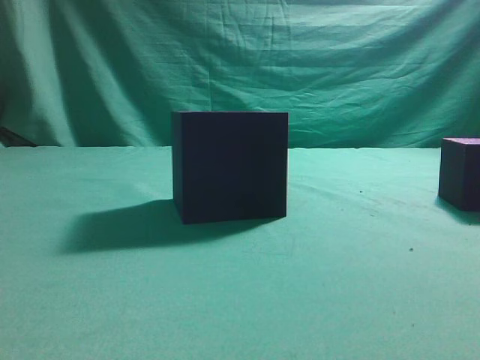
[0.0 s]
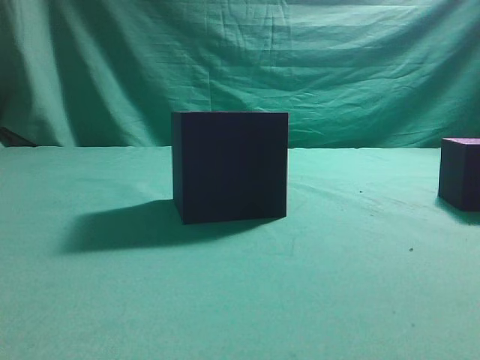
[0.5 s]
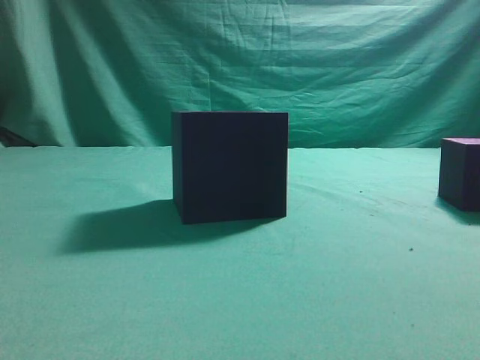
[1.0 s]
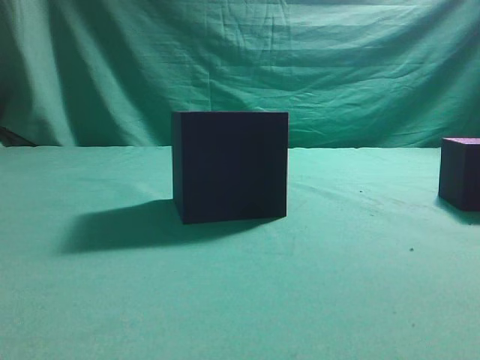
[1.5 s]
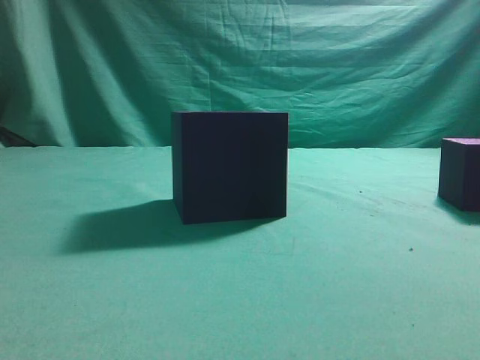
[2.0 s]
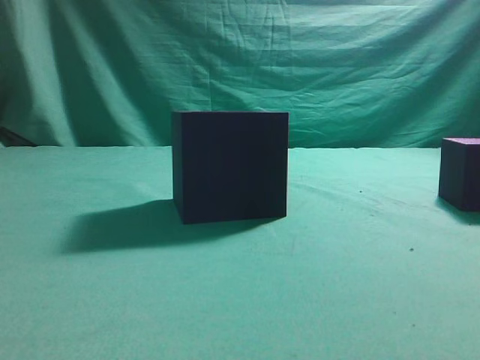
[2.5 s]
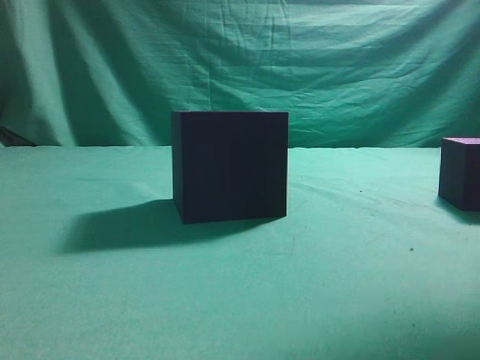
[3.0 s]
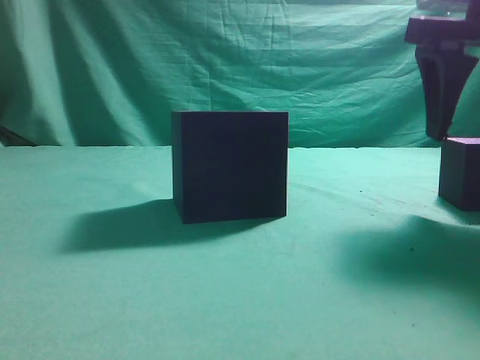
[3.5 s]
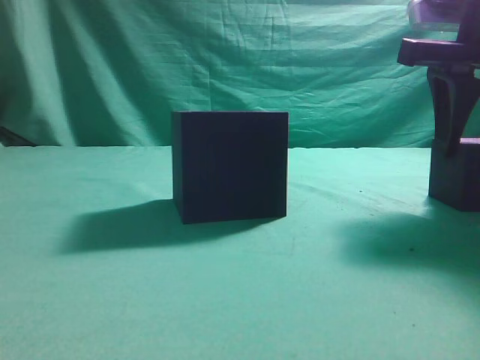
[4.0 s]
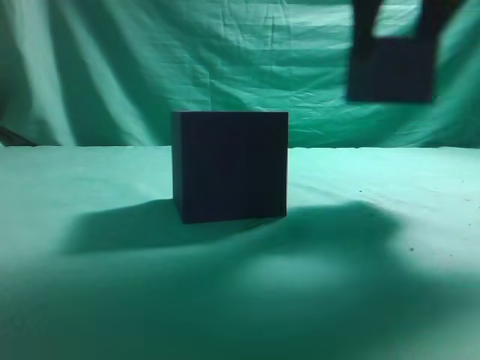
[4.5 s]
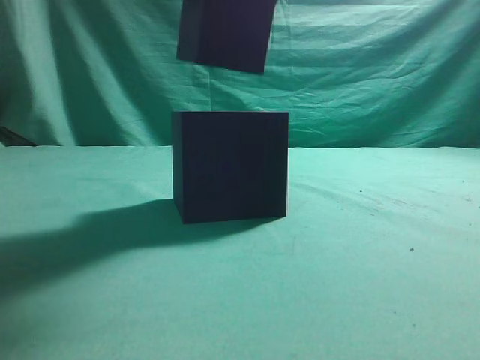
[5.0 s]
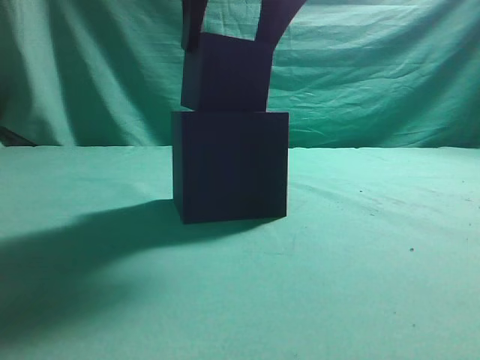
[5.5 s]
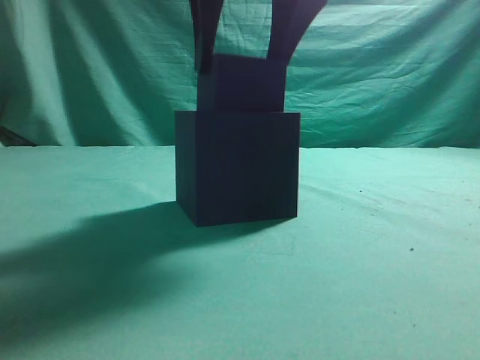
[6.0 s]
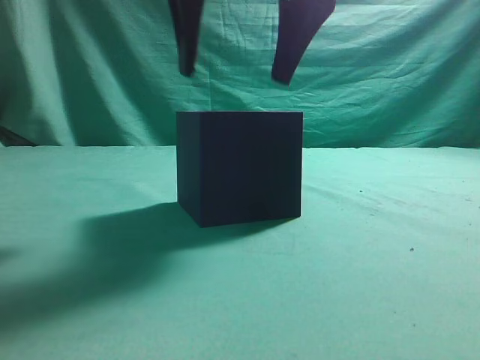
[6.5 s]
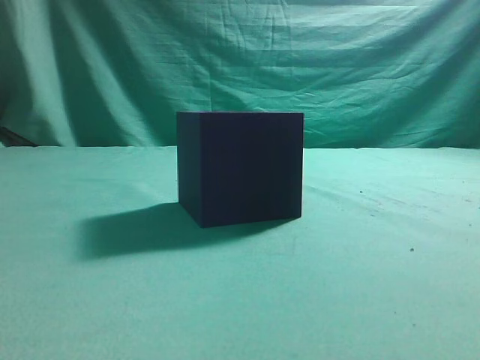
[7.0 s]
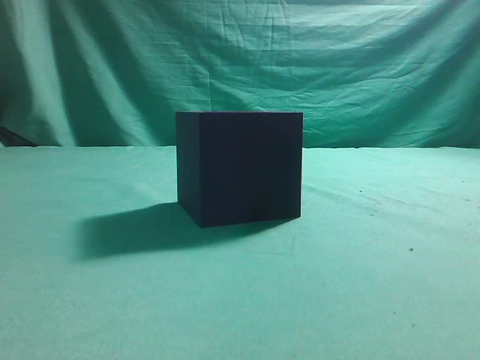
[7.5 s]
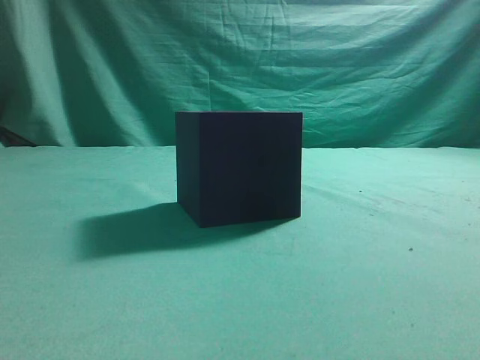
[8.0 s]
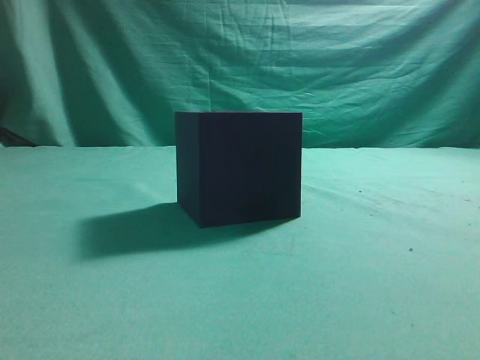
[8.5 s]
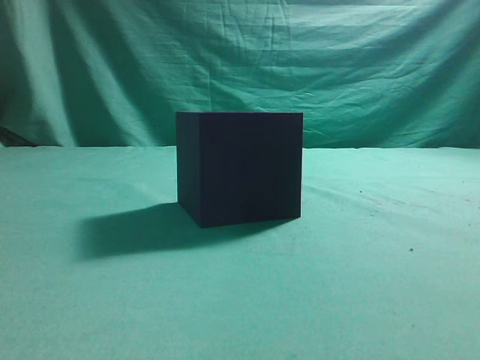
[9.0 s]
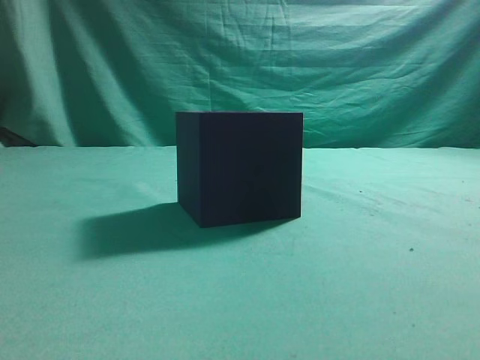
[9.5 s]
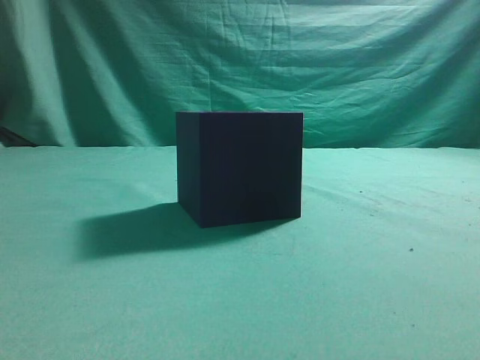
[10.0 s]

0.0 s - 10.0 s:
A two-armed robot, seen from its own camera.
Task of the whole recording: pick up the cube block and place it into the cube groove.
Step, 0.0 s - 4.0 s: Grasp the cube.
Step, 4.5 s - 6.5 s: Place cube into the cube-shaped recess.
2.0 s - 4.0 s: The right gripper heads forward, covering approximately 25 cm, and opens up.
4.0 s - 6.0 s: The right gripper shifts approximately 20 cm to the left.
6.0 s - 8.0 s: The right gripper moves to the right, backward and upward, some 35 cm, and closes its fingers.

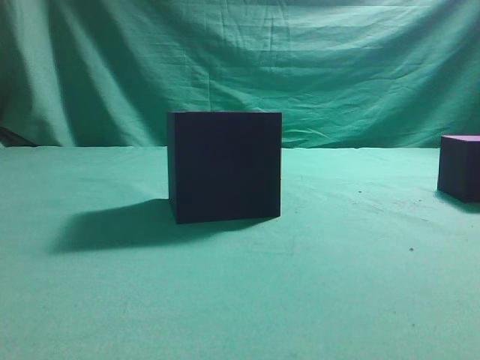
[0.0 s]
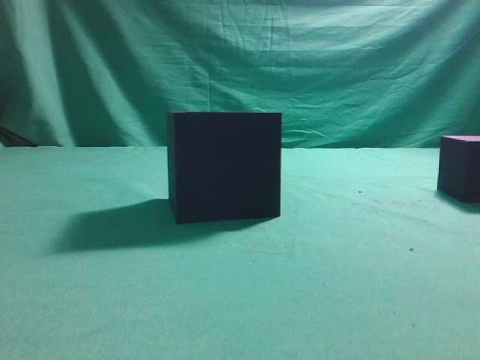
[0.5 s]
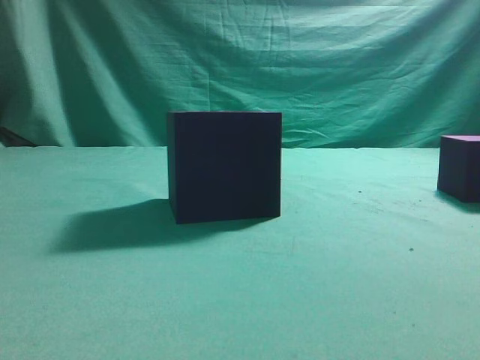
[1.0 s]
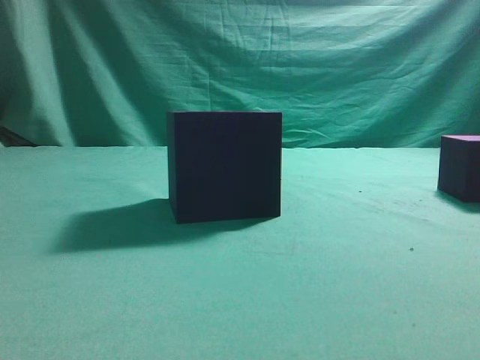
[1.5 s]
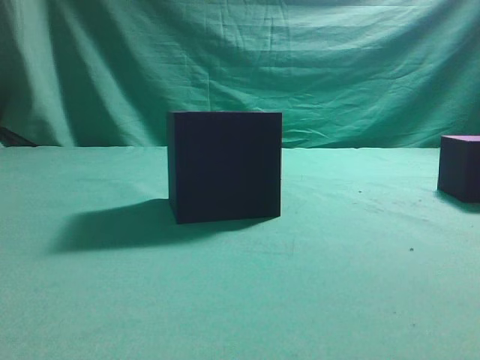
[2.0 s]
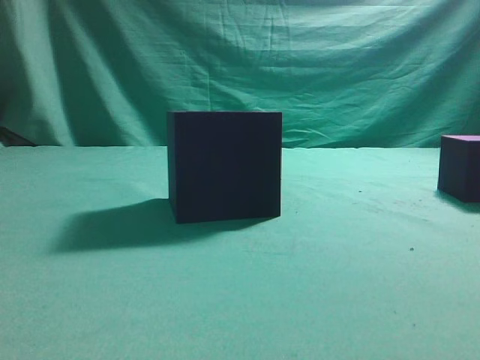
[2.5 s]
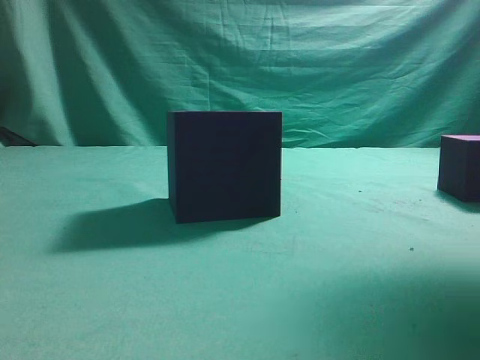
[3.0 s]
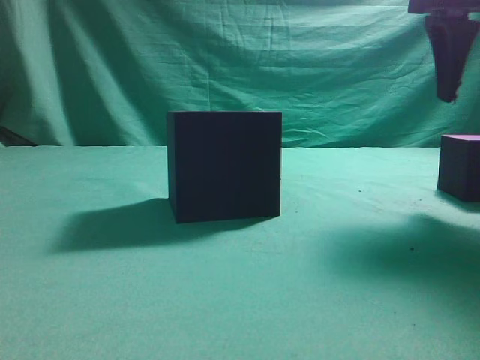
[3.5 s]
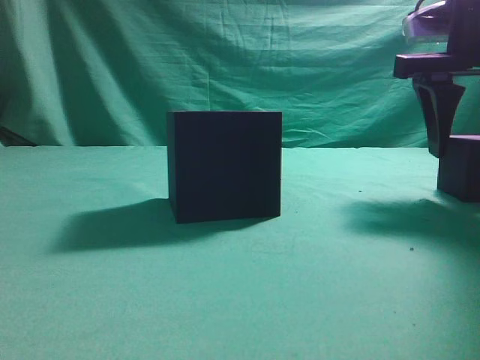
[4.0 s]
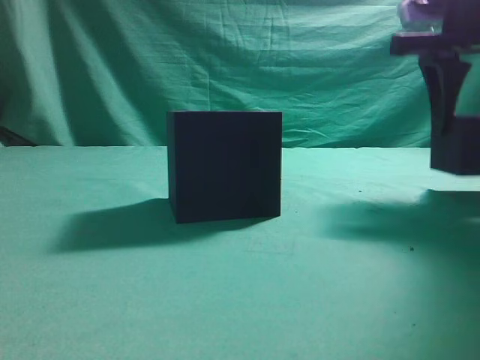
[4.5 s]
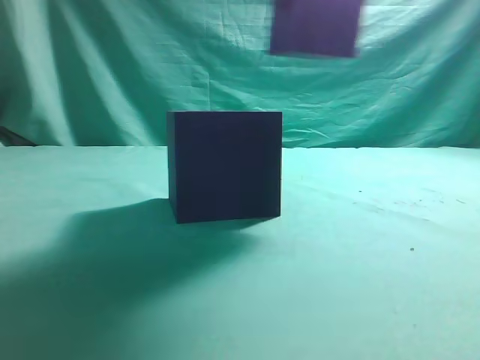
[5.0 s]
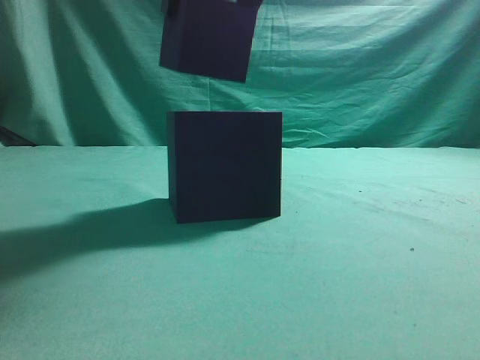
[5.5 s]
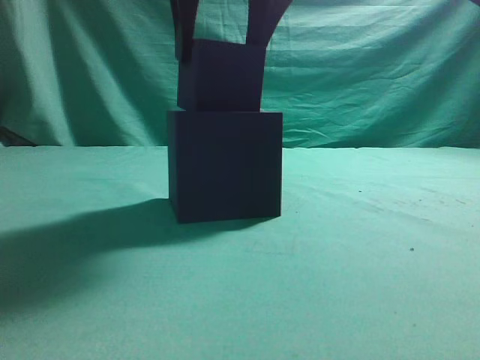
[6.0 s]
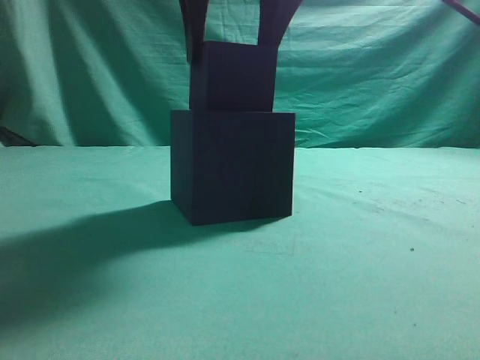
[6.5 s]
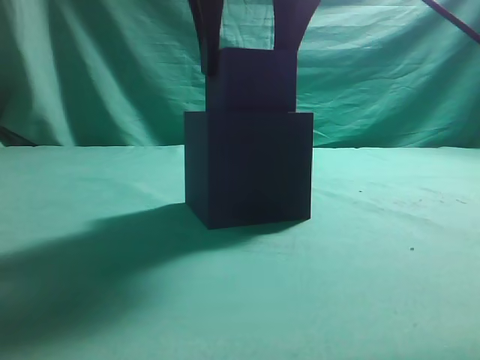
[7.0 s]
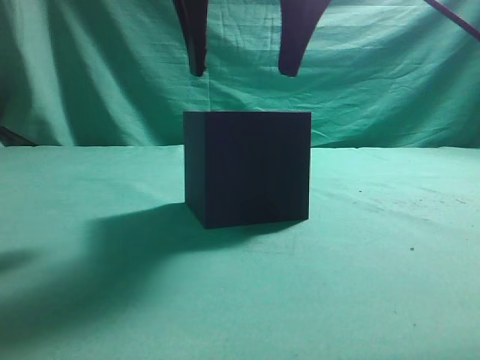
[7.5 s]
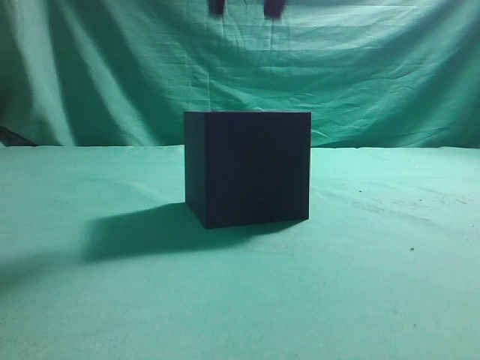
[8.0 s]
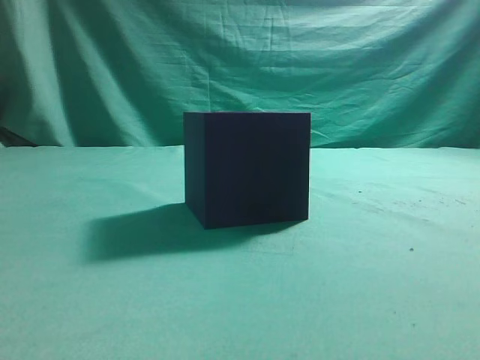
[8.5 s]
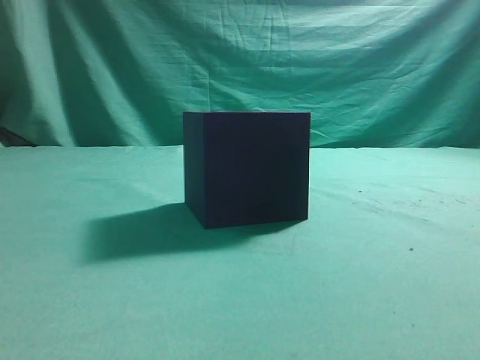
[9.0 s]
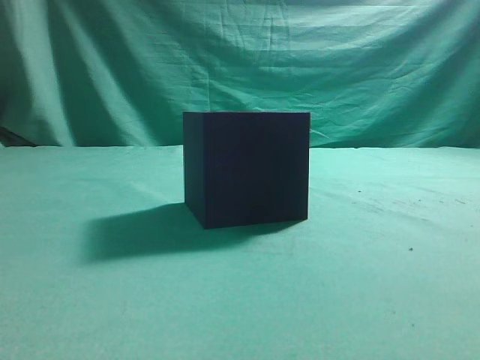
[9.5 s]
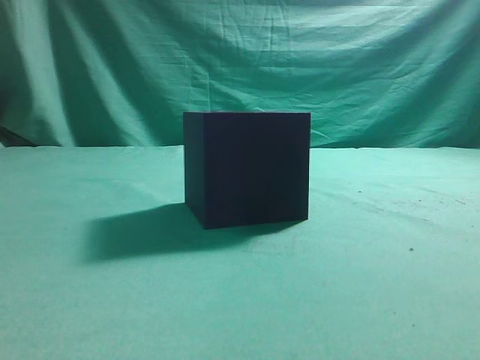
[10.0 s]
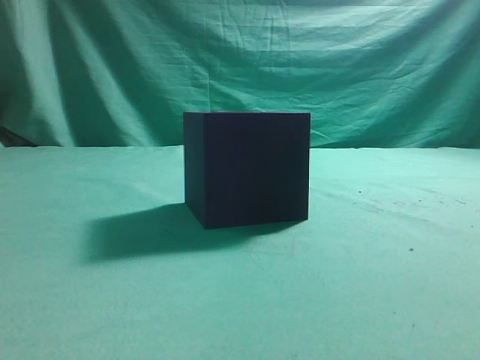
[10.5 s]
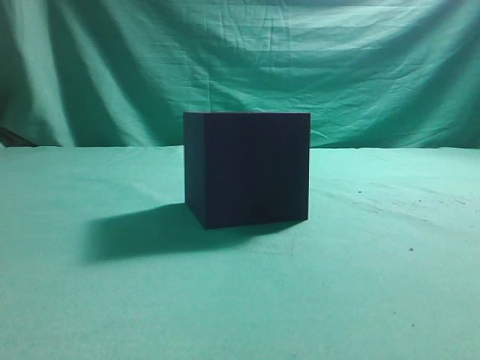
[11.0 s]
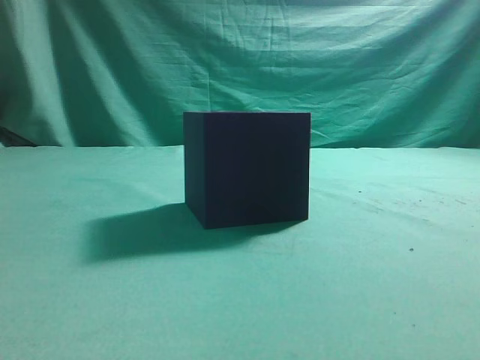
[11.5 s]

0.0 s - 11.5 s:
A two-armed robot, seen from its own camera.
Task of the whole recording: pick up the cube block and place it into the cube groove.
Step, 0.0 s - 4.5 s: Grasp the cube.
Step, 5.0 s - 7.5 s: Place cube into the cube-shaped recess.
2.0 s - 4.0 s: The right gripper shifts roughly 25 cm forward, and opens.
4.0 s - 6.0 s: The right gripper is displaced to the left by approximately 20 cm.
7.5 s - 9.5 s: The right gripper shifts about 40 cm to the right, backward and upward, and closes its fingers.
